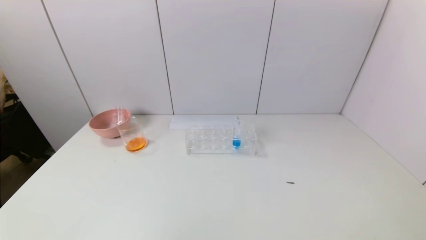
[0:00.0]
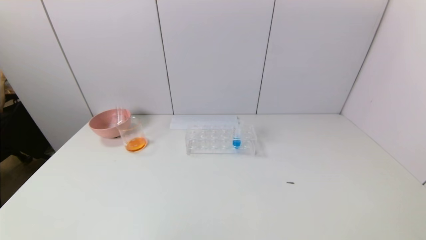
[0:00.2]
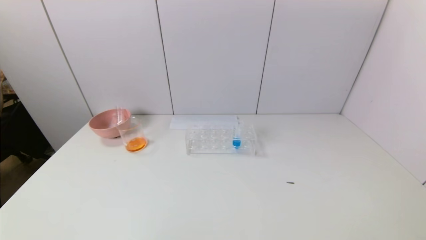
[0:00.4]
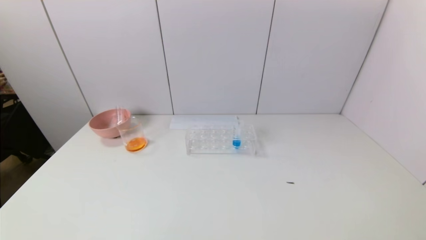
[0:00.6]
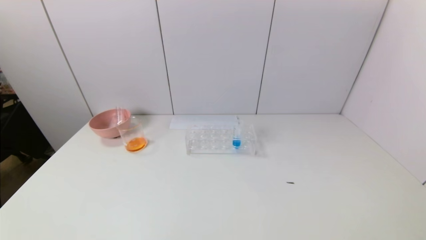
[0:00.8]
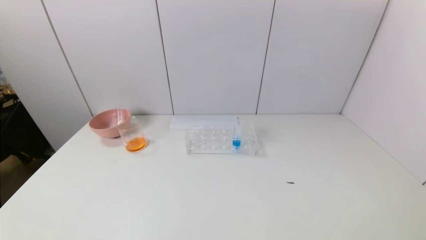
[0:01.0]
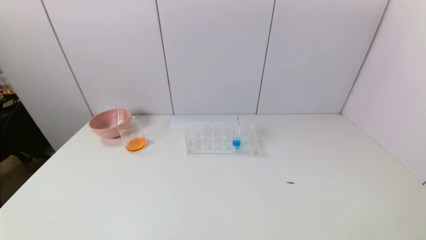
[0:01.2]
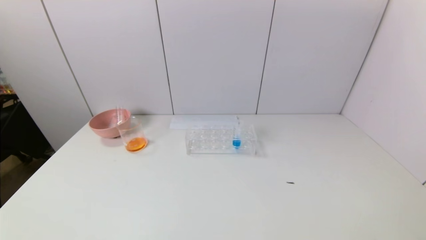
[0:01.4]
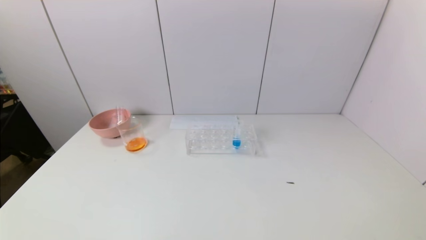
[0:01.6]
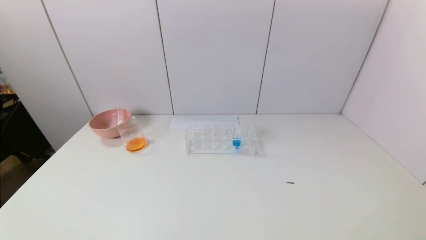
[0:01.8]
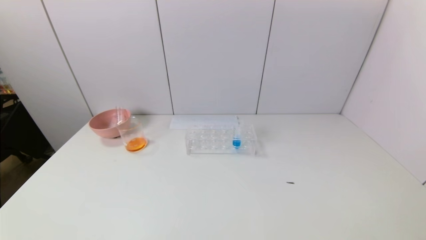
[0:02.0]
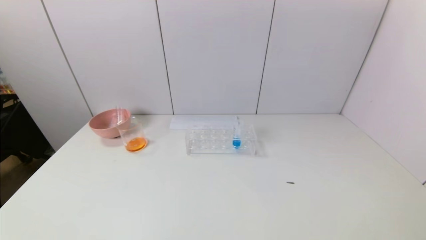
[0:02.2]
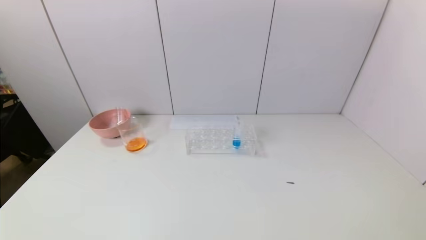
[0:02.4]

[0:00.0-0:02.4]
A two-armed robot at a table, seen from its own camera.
Task of the whole recording: pick up the test tube with yellow pigment and the test tube with red pigment by grippers and pour them into the beaker.
0:01.2 to 0:02.4: Both grippers stay put.

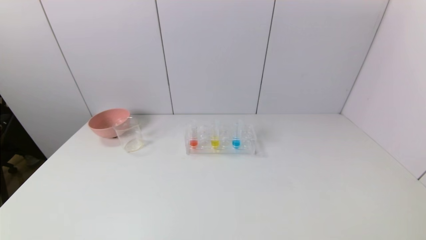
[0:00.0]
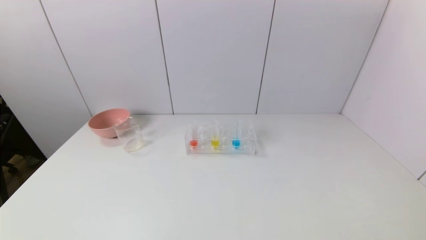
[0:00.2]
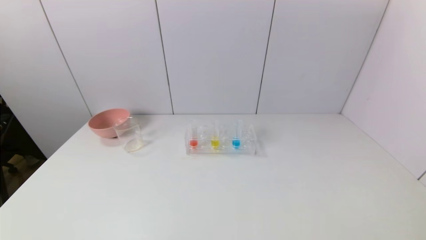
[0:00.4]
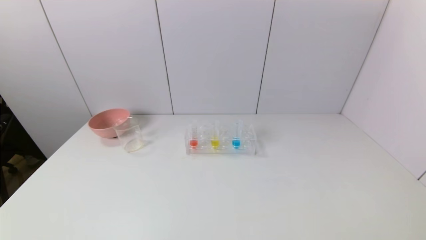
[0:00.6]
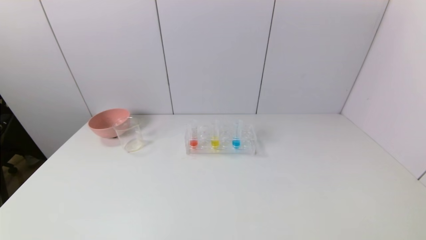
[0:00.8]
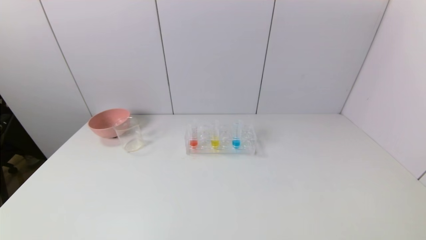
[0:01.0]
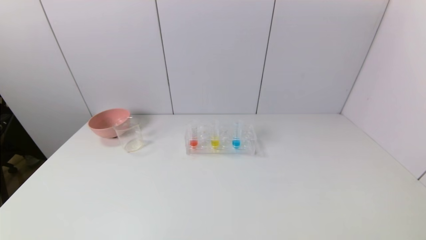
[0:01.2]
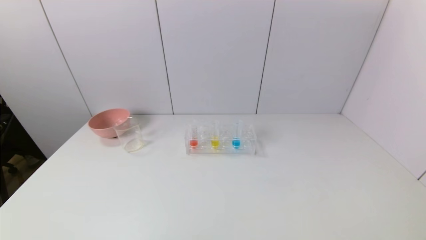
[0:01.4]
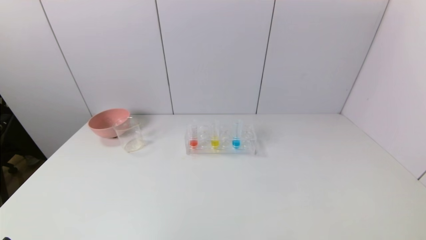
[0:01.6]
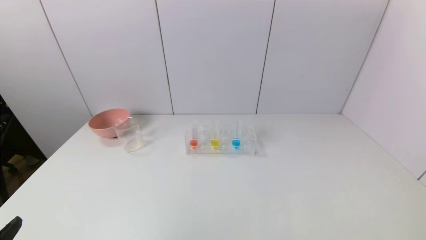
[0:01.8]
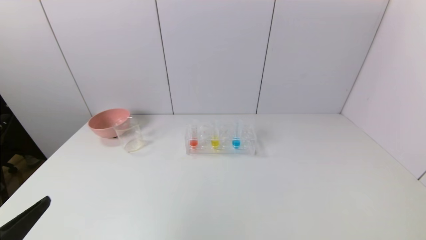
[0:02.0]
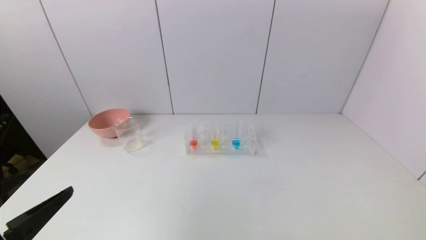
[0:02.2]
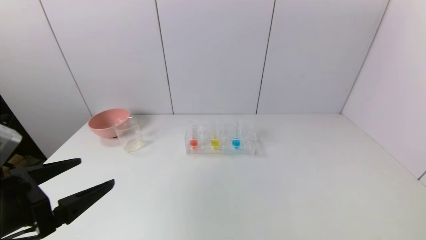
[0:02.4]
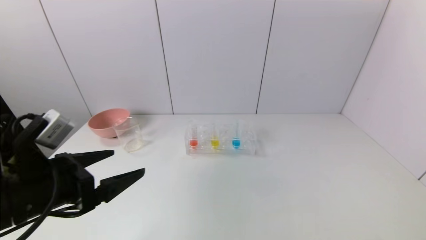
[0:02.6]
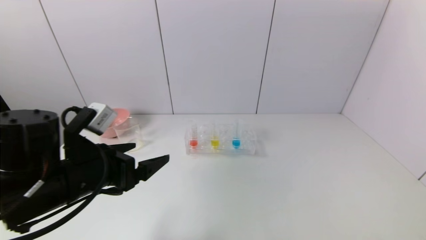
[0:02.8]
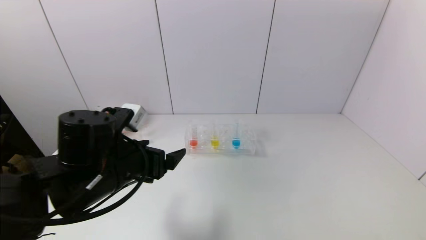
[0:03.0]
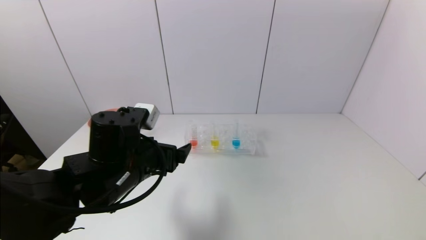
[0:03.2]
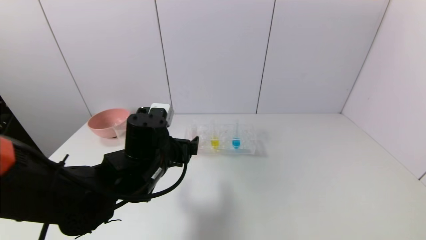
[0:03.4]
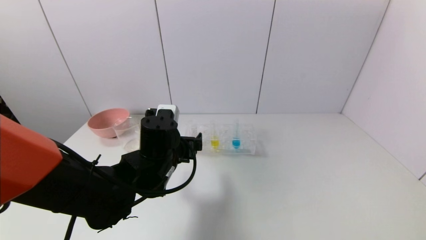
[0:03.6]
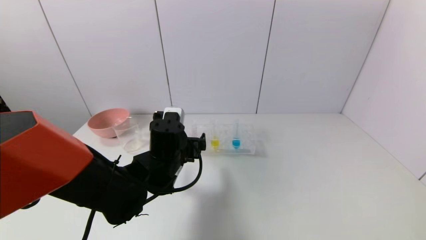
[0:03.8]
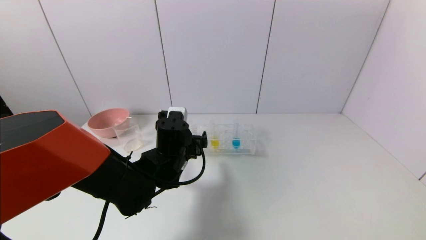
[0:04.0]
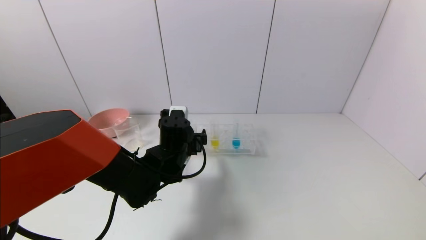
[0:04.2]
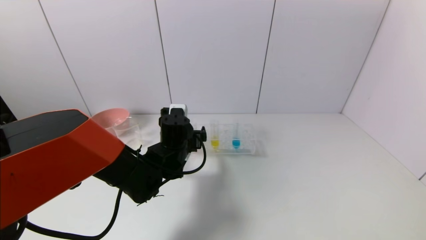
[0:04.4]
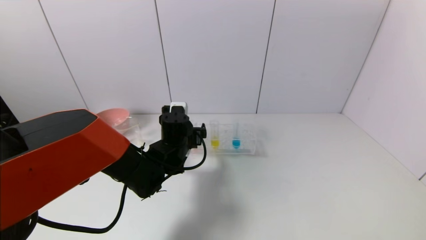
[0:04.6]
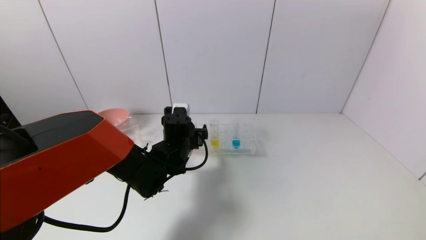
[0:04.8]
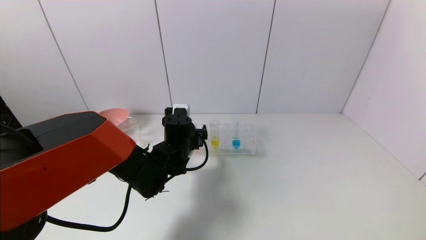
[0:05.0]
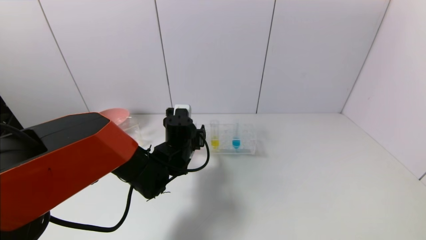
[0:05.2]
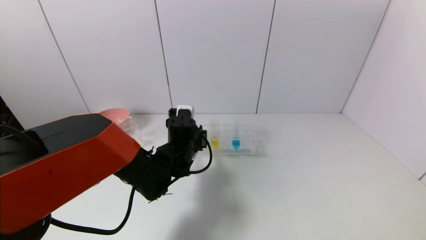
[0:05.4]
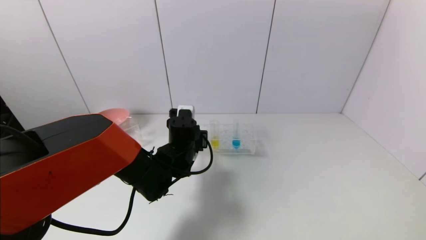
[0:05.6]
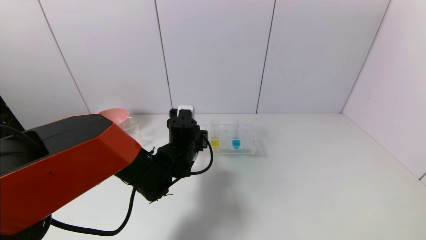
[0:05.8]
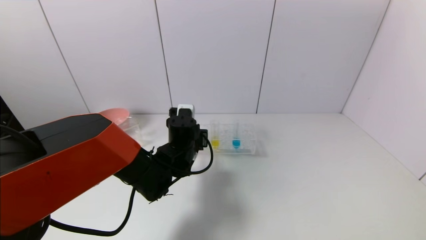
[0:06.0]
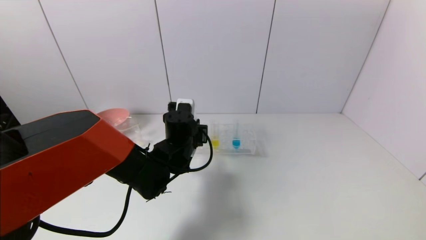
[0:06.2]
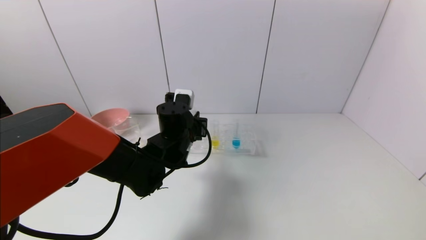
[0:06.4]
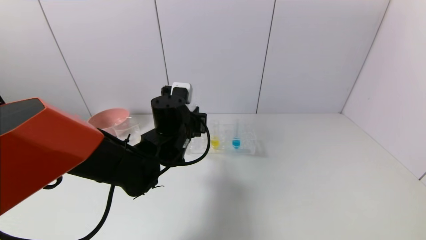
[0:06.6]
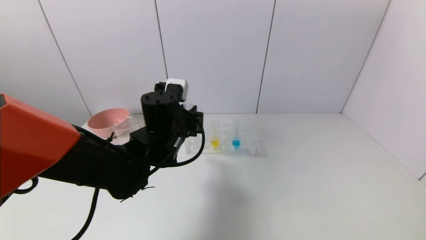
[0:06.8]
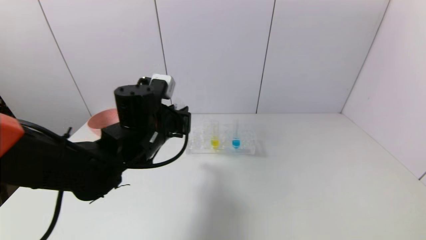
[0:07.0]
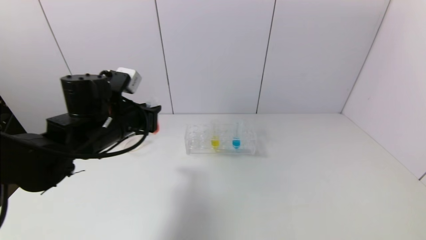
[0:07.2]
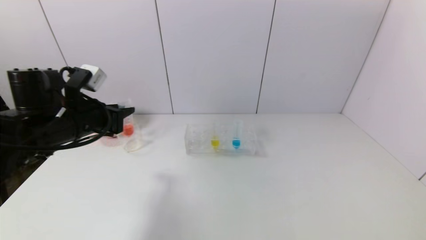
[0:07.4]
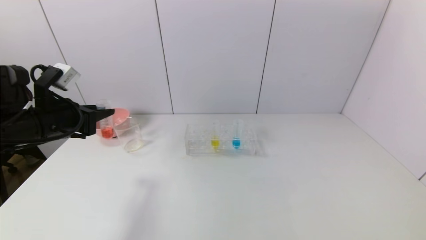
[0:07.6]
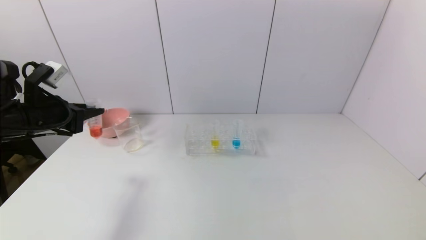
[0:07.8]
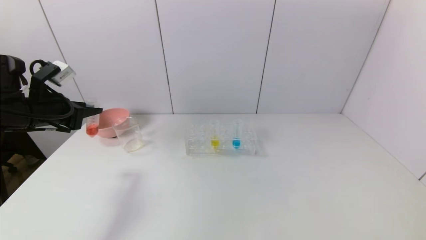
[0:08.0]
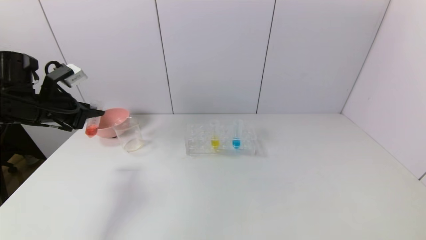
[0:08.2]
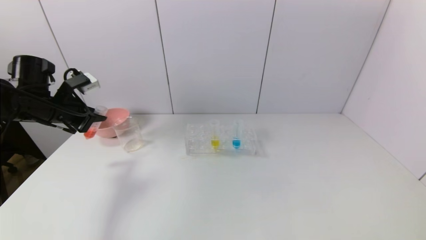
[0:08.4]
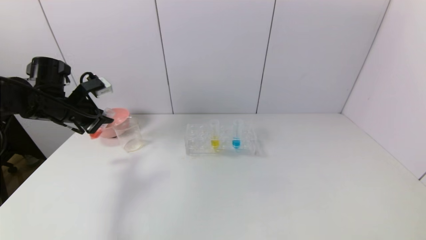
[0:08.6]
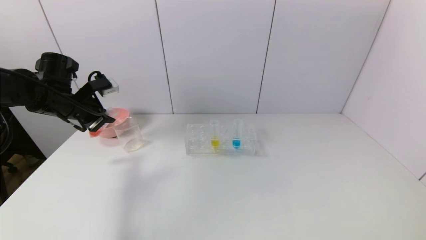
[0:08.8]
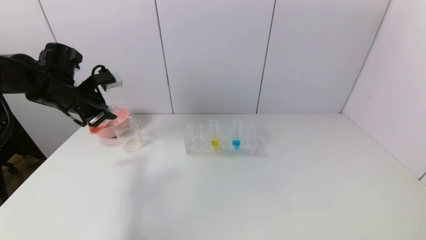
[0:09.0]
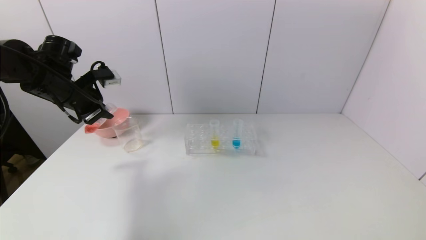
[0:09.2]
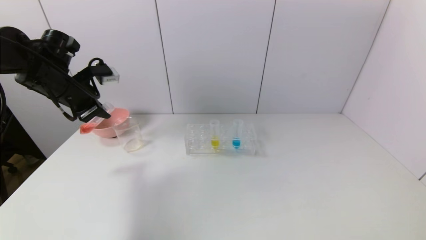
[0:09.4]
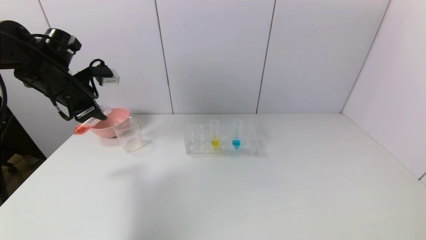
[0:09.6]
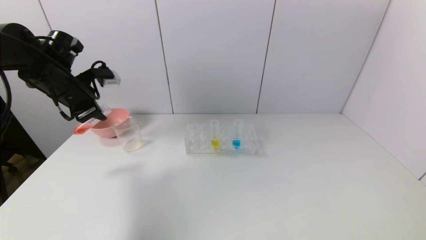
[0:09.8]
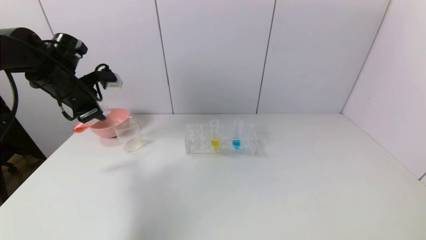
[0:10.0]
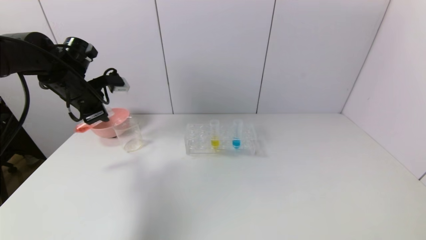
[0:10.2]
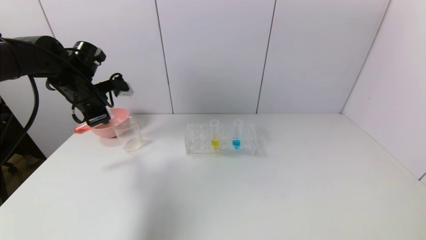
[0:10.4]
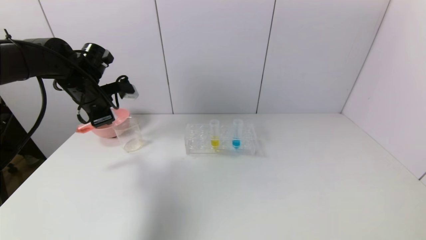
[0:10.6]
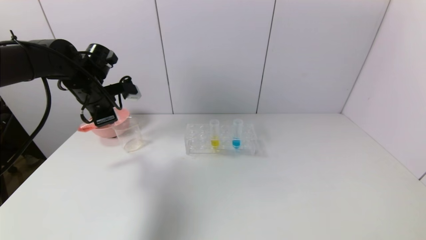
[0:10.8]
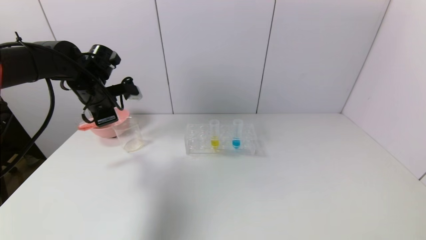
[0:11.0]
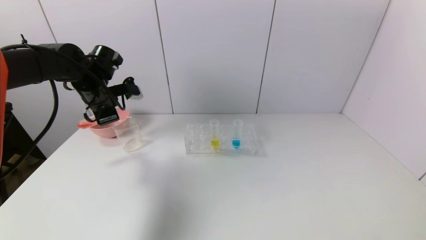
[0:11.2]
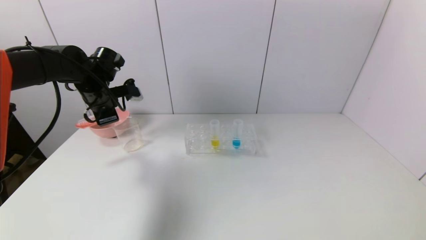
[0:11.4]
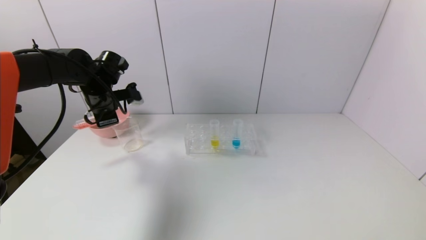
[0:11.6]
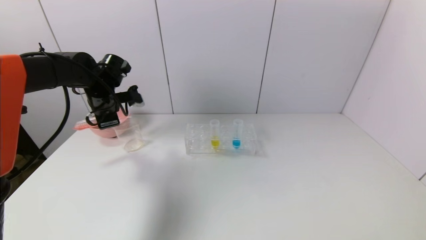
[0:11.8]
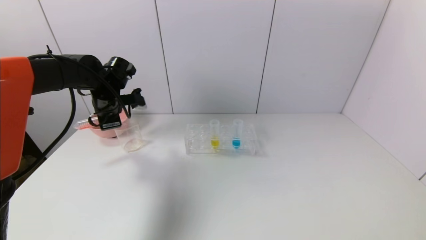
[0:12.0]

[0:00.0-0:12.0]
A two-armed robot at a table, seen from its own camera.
Task of the whole recording: pick up the test tube with yellow pigment and the test tube with red pigment by grippers and pour them into the beaker.
Step, 0:00.0 to 0:05.6: Grasp the red reagent with the left gripper.
0:01.6 to 0:03.0: The left gripper is displaced forward and to the right by approximately 25 cm.
0:03.0 to 0:04.4: The left gripper goes about 15 cm forward, to the right and downward.
0:04.4 to 0:06.0: The left gripper closes.
0:06.0 to 0:07.6: The left gripper goes approximately 30 cm to the left and upward.
0:07.6 to 0:09.0: The left gripper moves forward, approximately 10 cm.
0:10.4 to 0:12.0: The left gripper ends up approximately 5 cm from where it was.

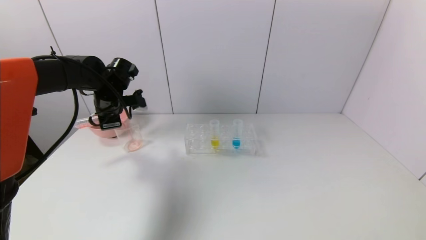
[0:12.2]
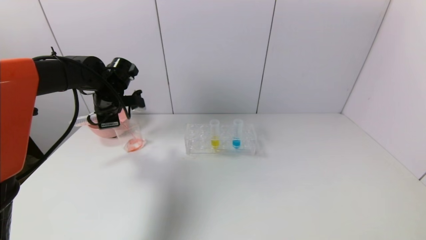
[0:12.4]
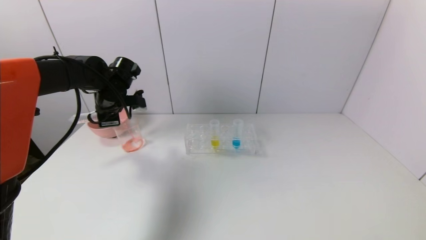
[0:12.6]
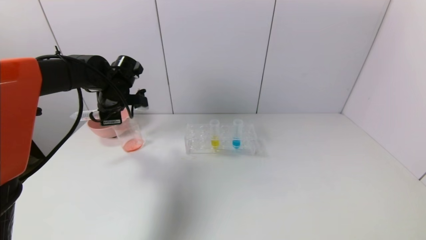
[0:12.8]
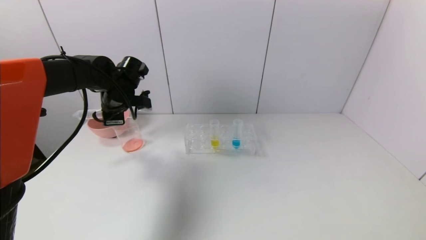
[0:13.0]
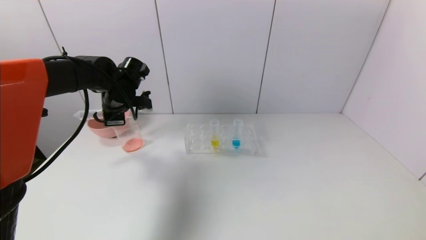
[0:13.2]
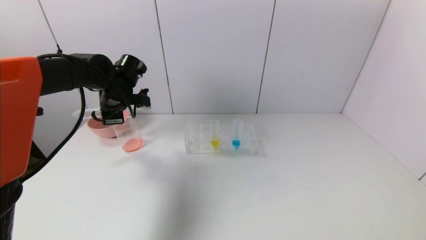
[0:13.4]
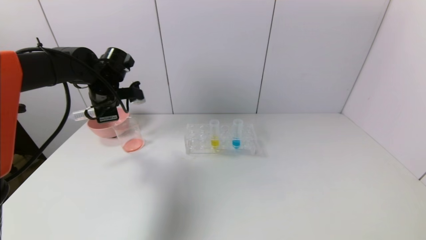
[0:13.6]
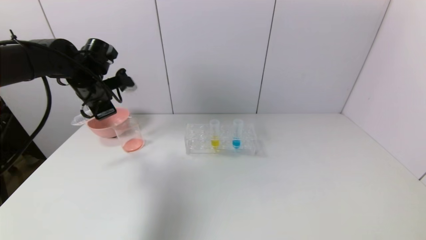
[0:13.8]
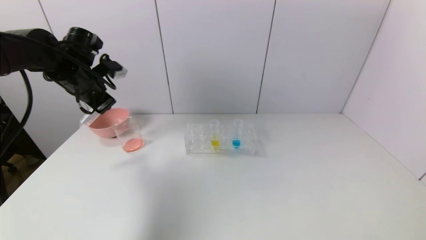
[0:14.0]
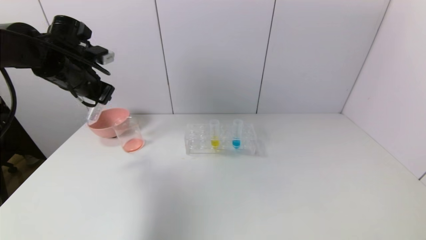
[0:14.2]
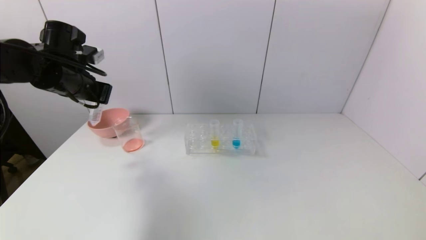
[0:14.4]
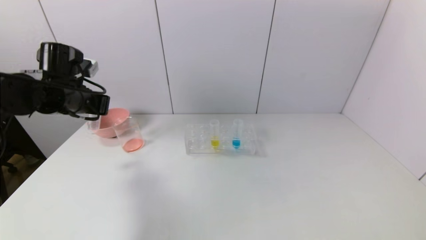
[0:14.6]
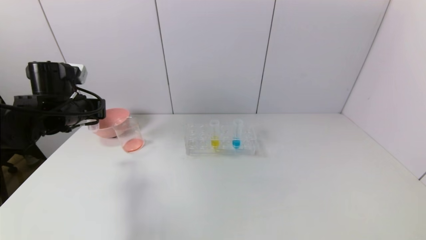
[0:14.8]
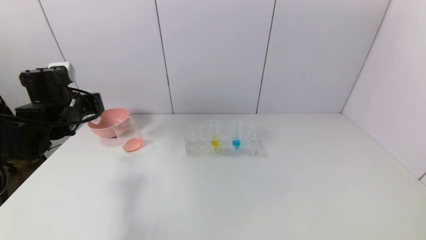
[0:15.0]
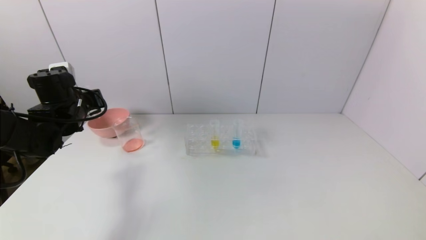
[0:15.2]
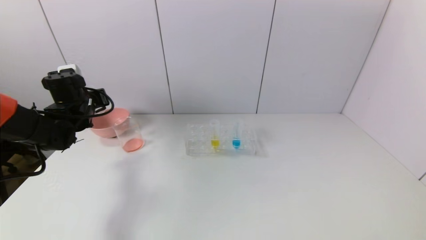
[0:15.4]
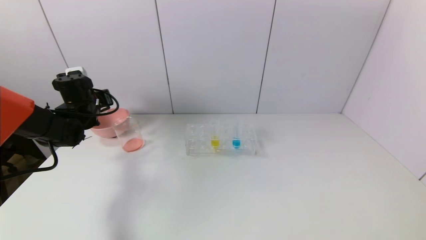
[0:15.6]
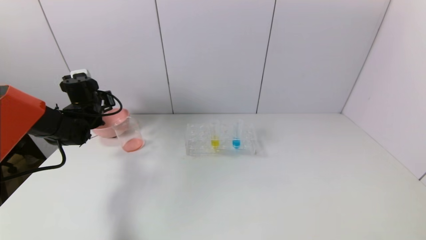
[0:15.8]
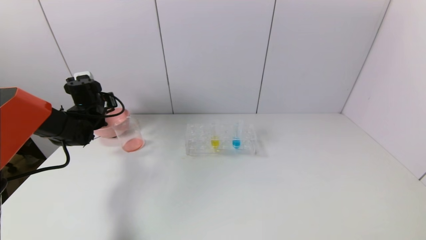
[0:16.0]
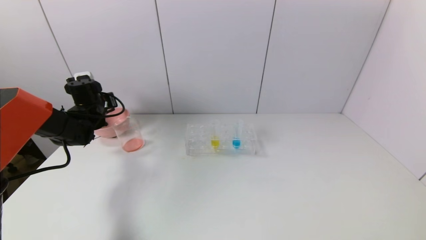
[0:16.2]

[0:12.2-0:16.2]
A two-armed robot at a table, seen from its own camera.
Task of the whole recording: pick up the test tube with yellow pigment and the test tube with red pigment by grippers and pour them into the beaker.
0:12.2 to 0:13.6: There are only small adjustments of the grippers.
0:13.6 to 0:14.8: The left gripper is displaced backward by roughly 5 cm.
0:14.8 to 0:16.2: The left gripper travels forward and downward by roughly 15 cm.
